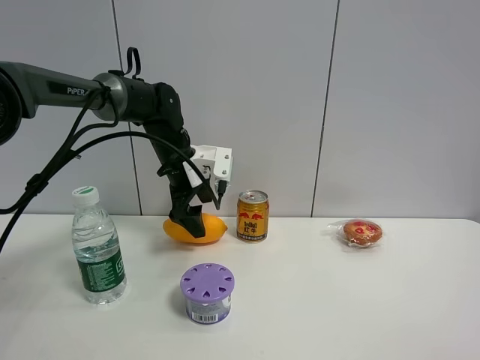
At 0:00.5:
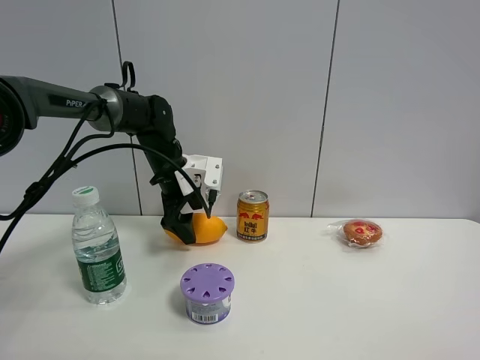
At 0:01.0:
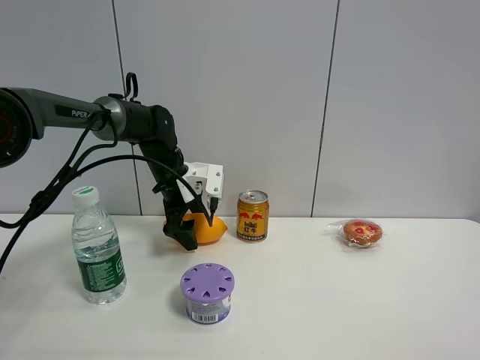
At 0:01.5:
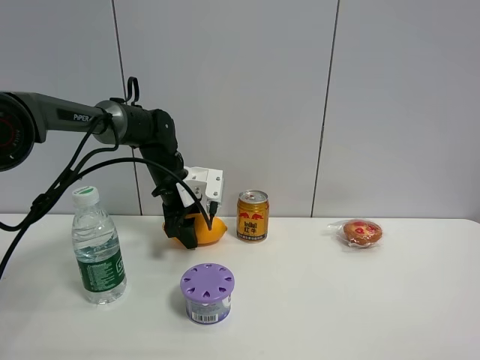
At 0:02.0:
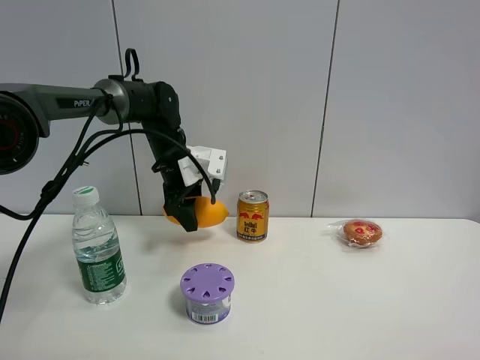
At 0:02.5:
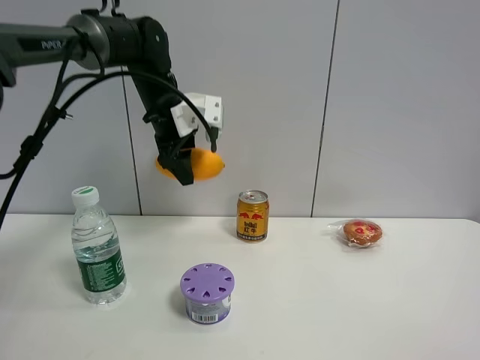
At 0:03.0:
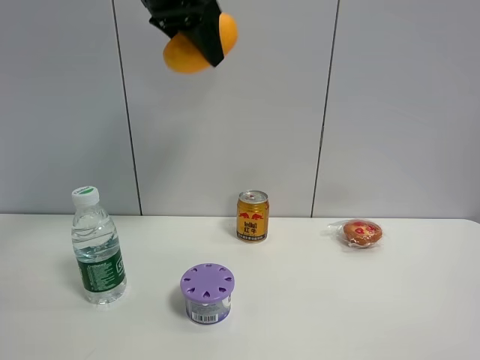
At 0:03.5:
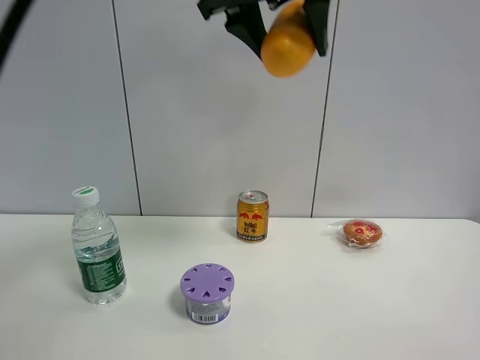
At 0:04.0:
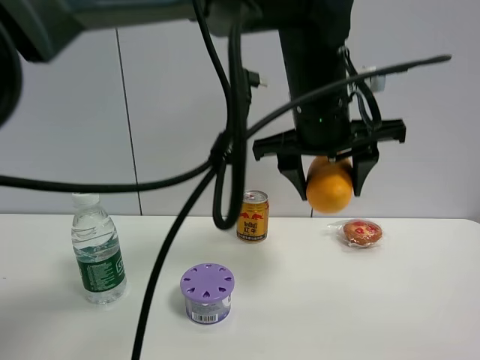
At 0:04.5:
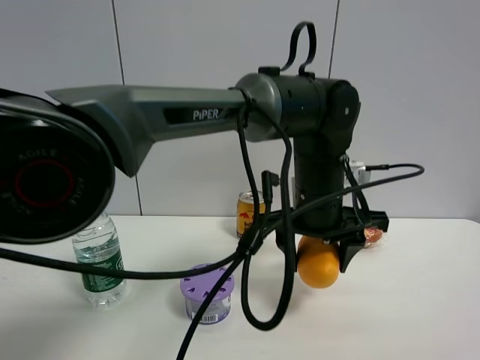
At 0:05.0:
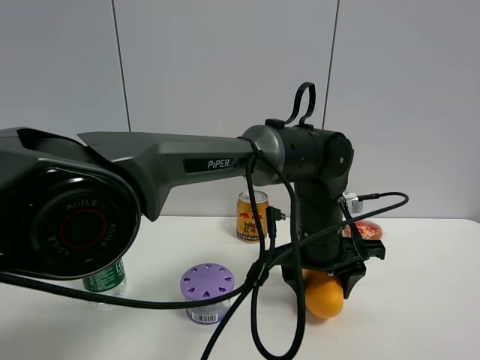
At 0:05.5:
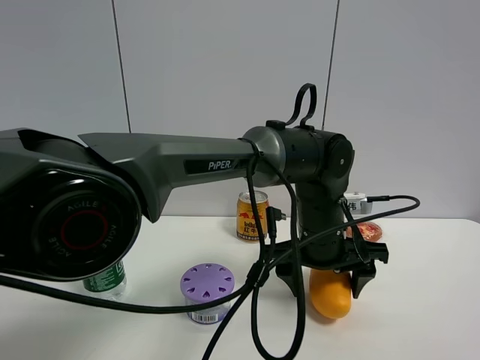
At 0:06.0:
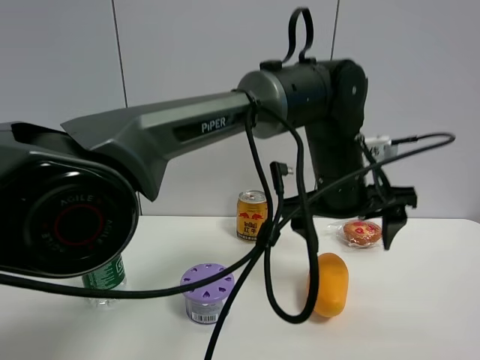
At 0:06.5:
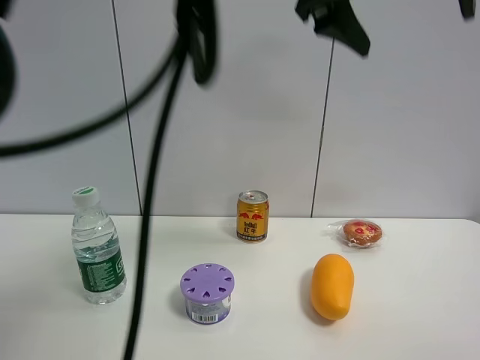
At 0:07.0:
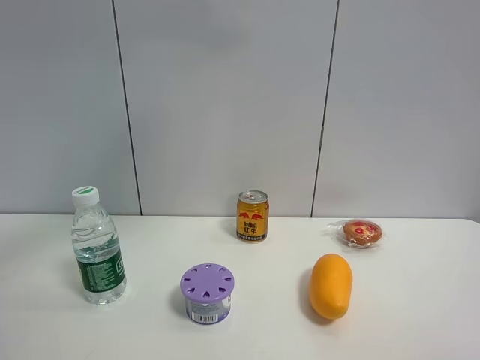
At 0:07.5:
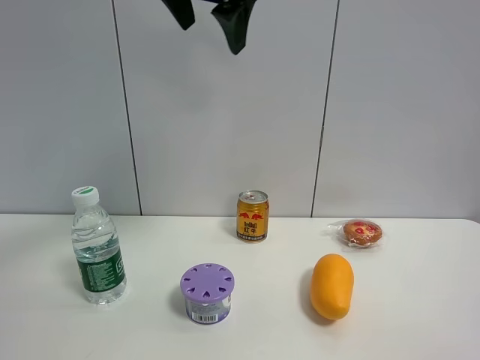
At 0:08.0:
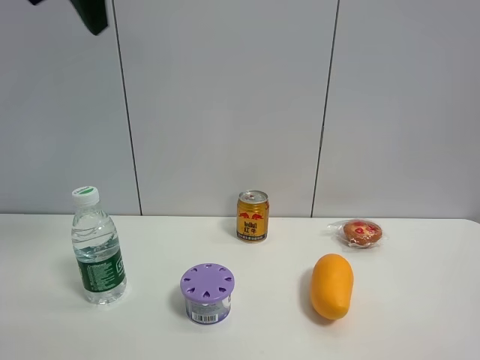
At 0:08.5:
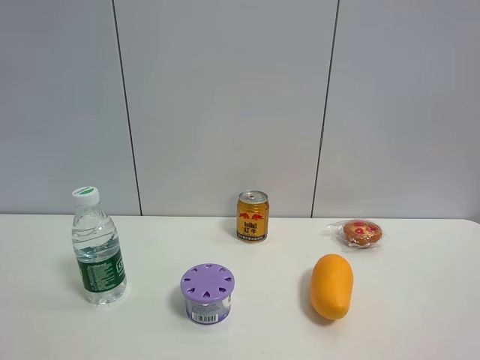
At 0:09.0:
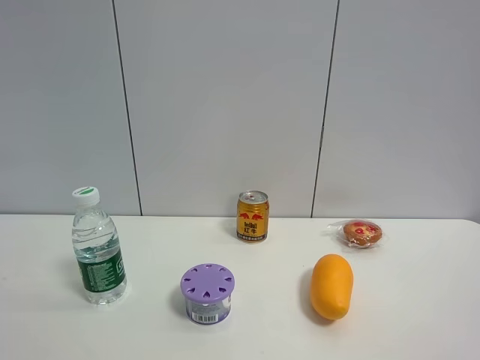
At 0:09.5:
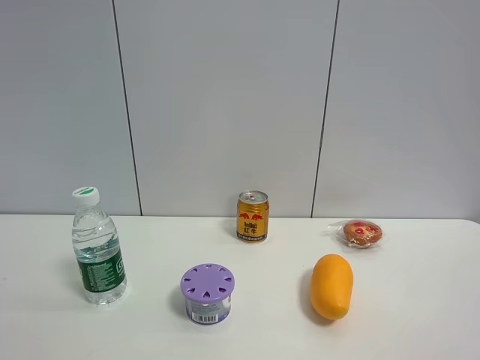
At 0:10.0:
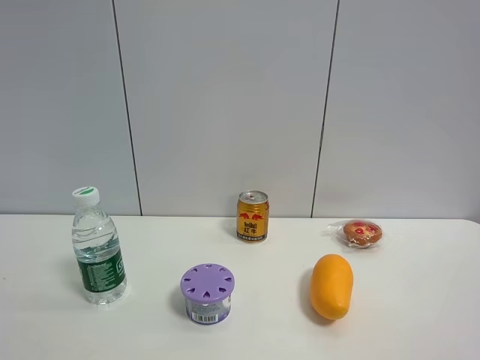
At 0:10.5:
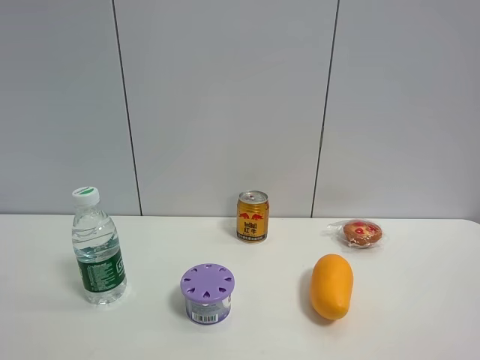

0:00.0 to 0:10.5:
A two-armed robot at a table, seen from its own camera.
Task of the whole recording: the gripper move the object.
Step, 0:02.0 to 0:05.5: Place the mango on the table with the left gripper.
0:00.0 to 0:02.0: The left gripper closes up.
0:02.0 to 0:04.0: The left gripper moves to the right, backward and upward, roughly 30 cm.
0:04.0 to 0:06.5: The left gripper is displaced upward by roughly 20 cm, and opens.
0:06.5 to 0:08.5: The left gripper goes about 40 cm to the left and backward.

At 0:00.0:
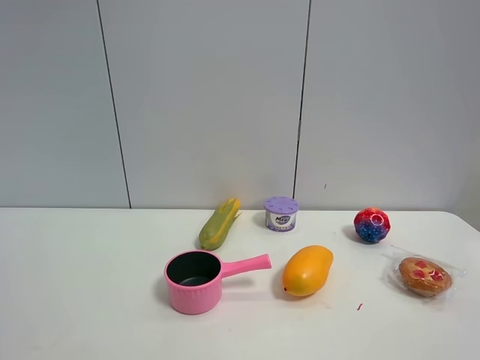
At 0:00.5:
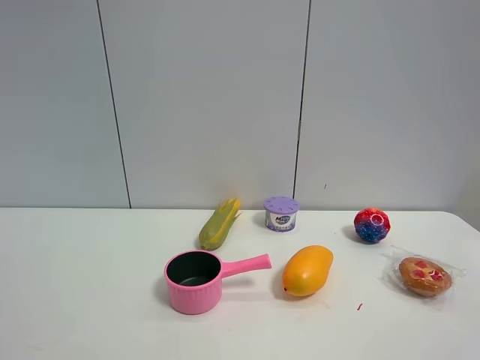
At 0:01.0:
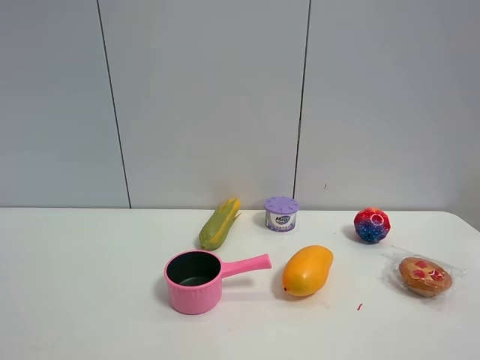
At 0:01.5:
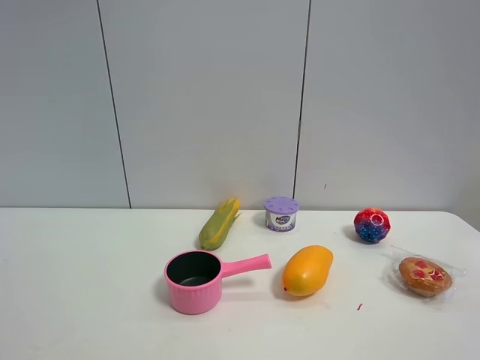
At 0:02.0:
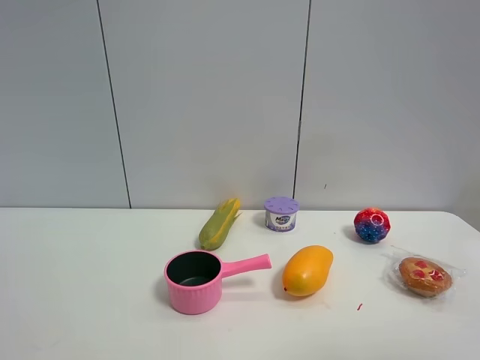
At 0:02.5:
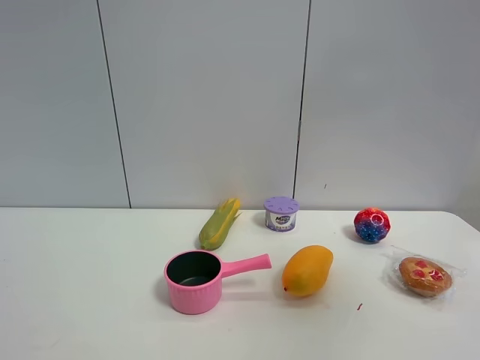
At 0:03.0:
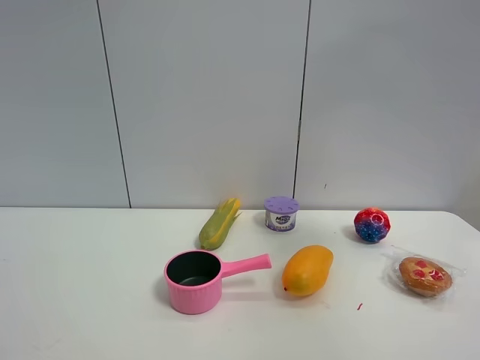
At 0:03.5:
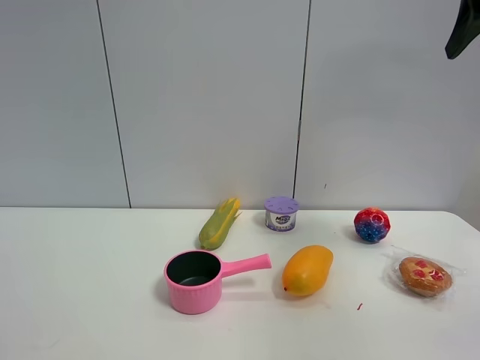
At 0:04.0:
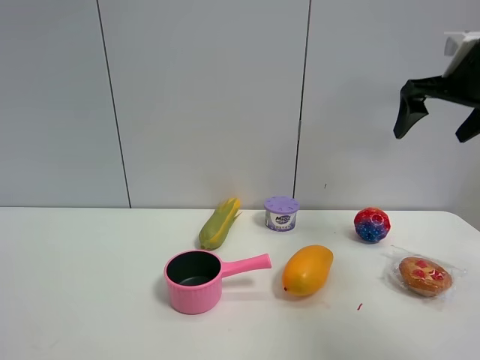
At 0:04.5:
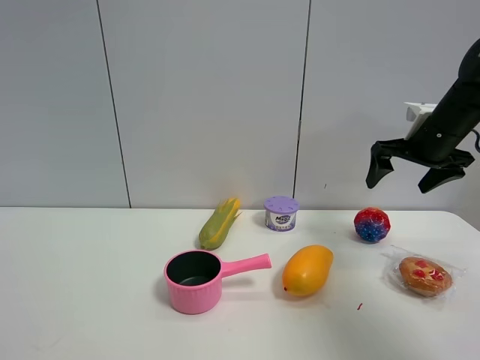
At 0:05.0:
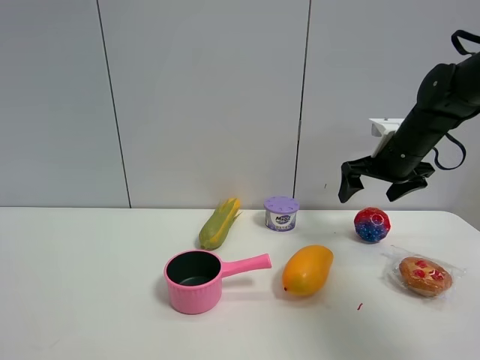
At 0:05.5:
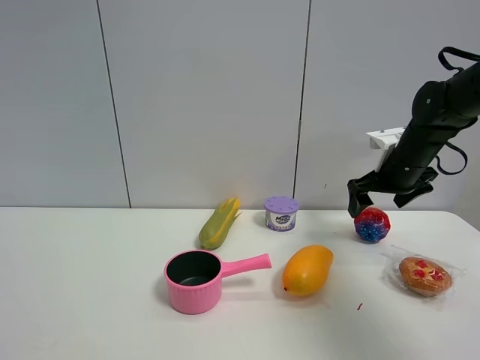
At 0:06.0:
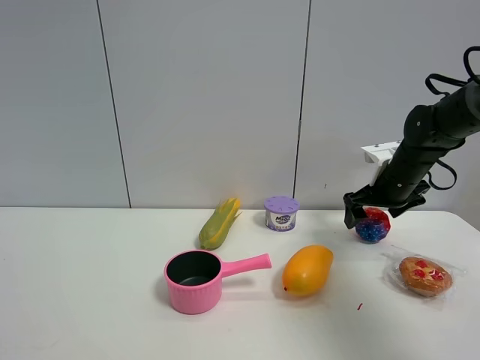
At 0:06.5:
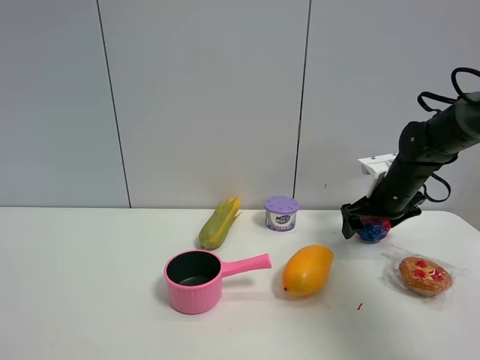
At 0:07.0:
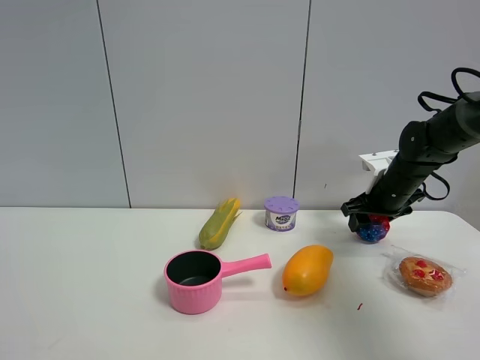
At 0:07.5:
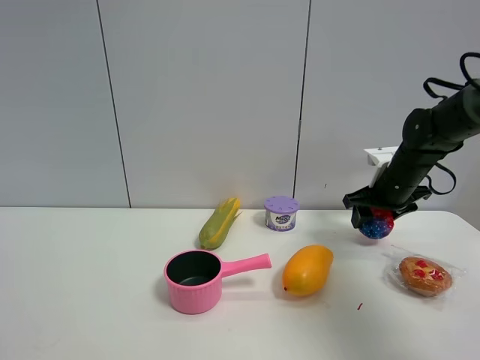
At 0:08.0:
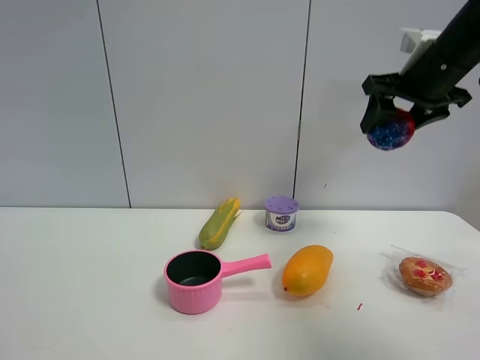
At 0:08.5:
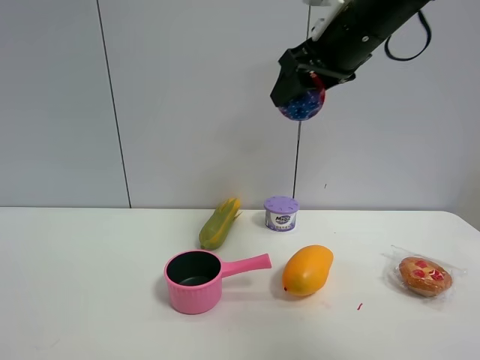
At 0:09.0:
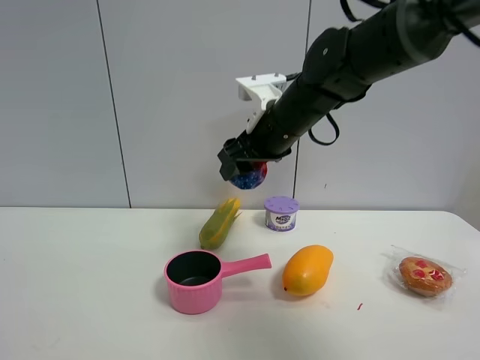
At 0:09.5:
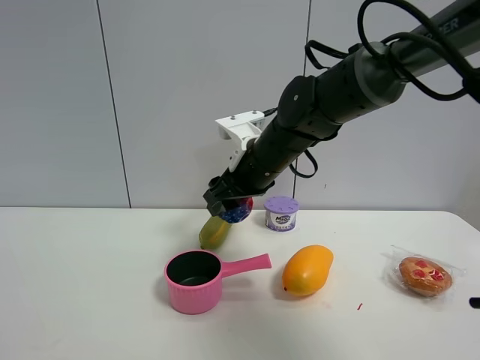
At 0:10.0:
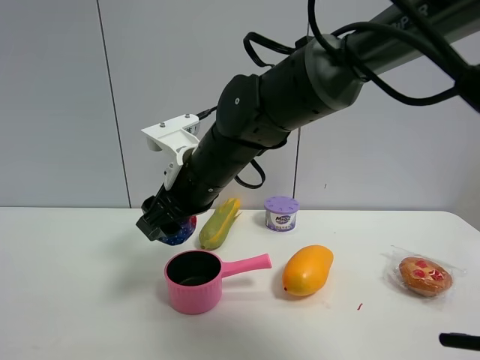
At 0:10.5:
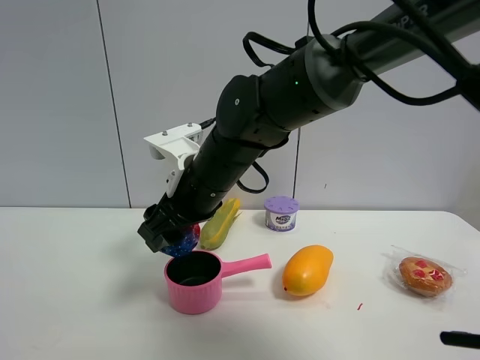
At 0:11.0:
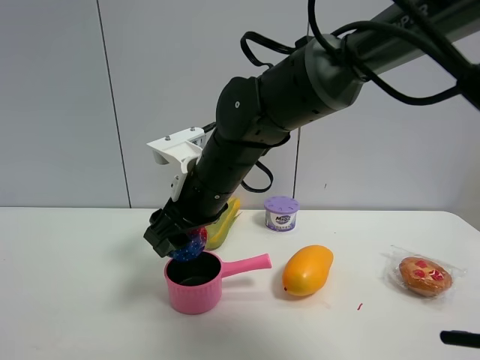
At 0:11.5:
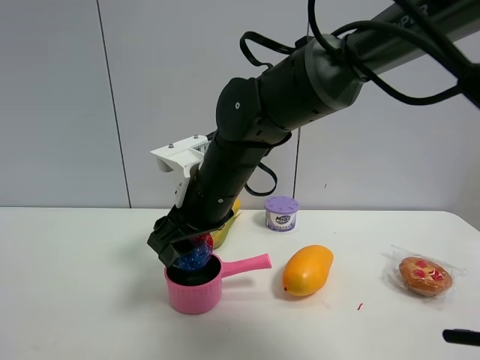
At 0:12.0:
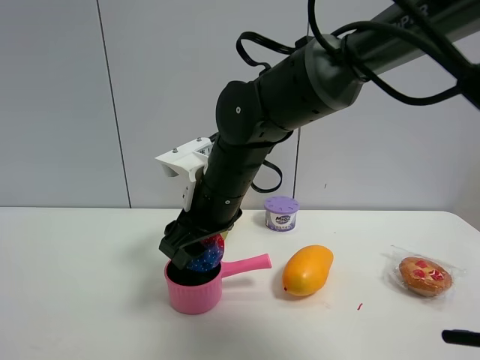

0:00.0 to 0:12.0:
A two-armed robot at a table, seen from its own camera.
Task of the whole recording: the gripper move the object.
Step, 0:00.0 to 0:07.0: Grasp the colorful ball with the right gripper.
0:02.0 to 0:04.0: The right gripper travels forward by approximately 40 cm.
0:04.0 to 0:06.0: The right gripper shifts roughly 20 cm downward and forward.
0:06.0 to 0:08.0: The right gripper moves upward, about 20 cm, and closes.
0:08.0 to 0:10.0: The right gripper is displaced to the left and downward by roughly 35 cm.
0:10.0 to 0:12.0: The grippers stay close to where they were, moving slightly.

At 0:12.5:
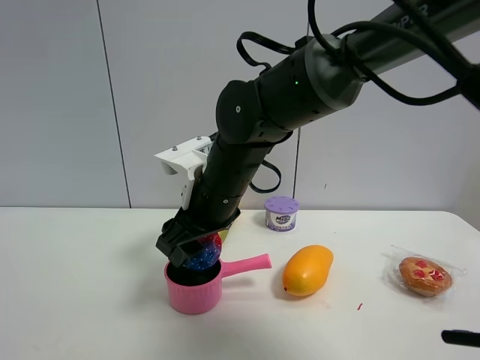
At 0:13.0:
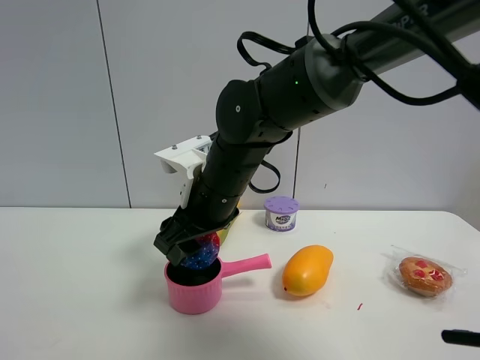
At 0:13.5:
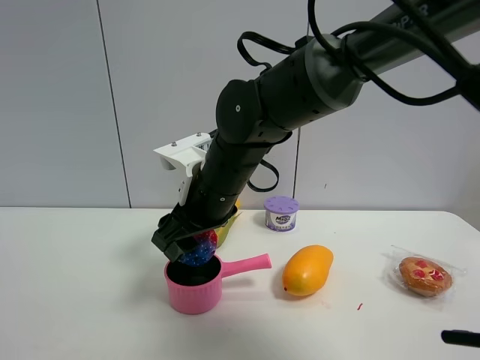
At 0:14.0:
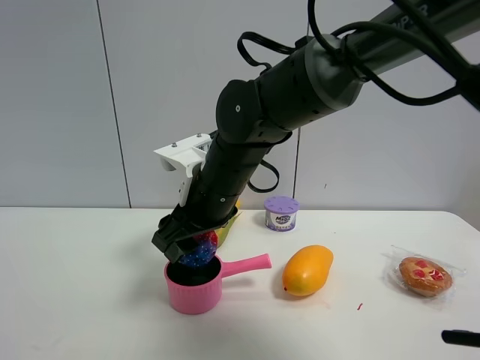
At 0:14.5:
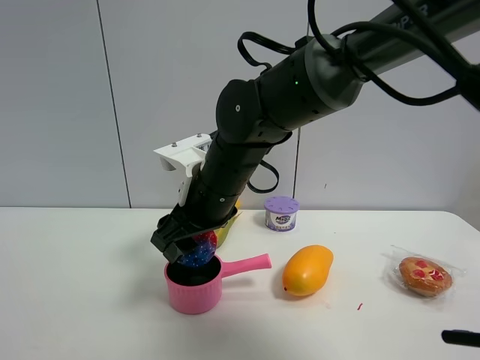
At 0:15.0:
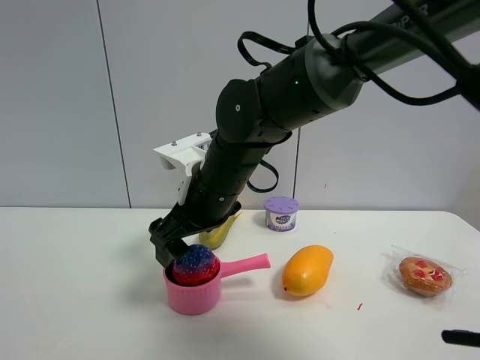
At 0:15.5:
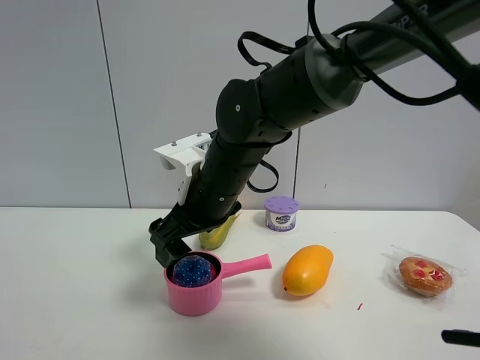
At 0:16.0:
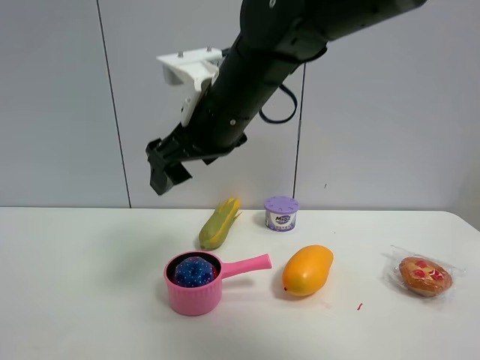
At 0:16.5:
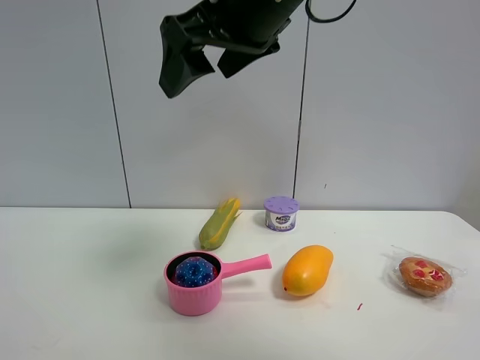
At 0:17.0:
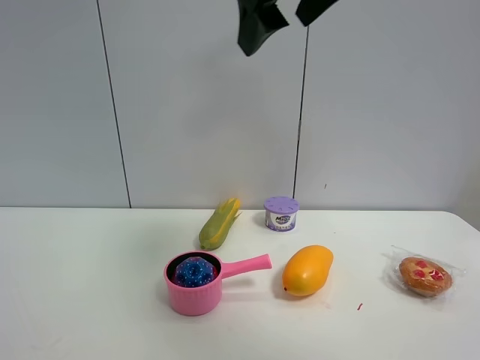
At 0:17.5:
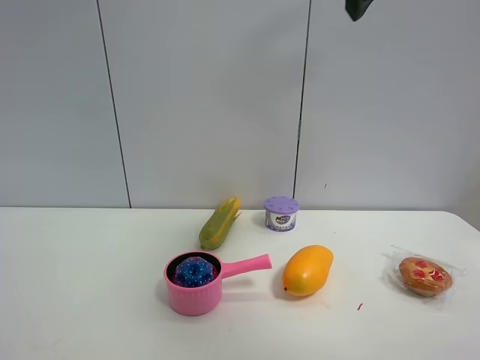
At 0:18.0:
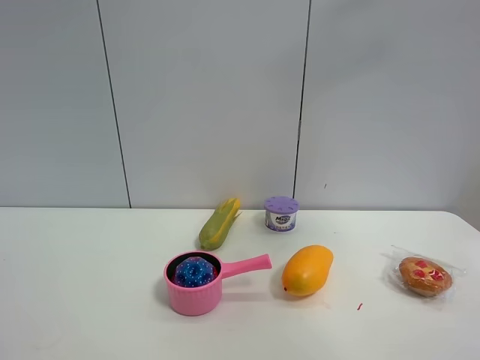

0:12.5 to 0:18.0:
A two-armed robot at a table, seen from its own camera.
Task of the whole recording: the gripper move the object.
Step, 0:12.5 to 0:15.5: Place the colorful ball into the pink pot with the right gripper.
0:12.5 to 0:14.5: The two grippers keep their place.
0:14.5 to 0:16.0: The right gripper goes roughly 10 cm upward, and opens its fingers.
0:16.0 to 0:18.0: The right gripper shifts about 35 cm to the right and upward.
